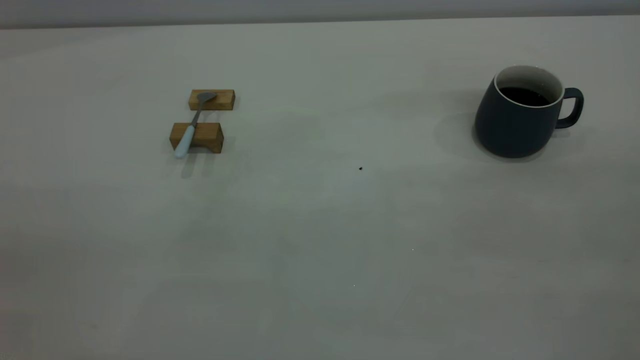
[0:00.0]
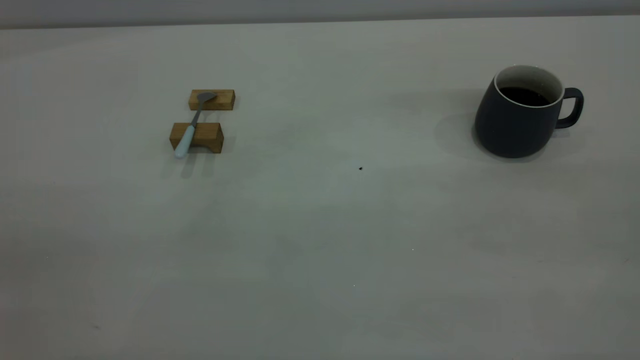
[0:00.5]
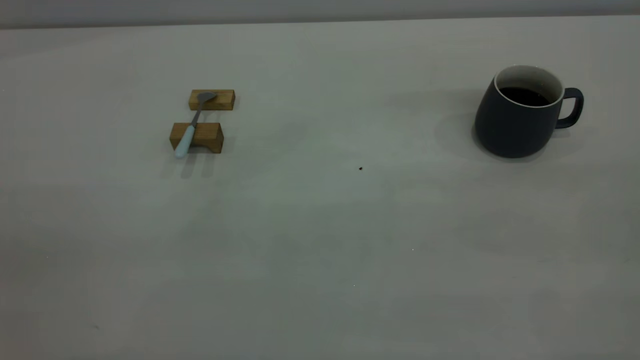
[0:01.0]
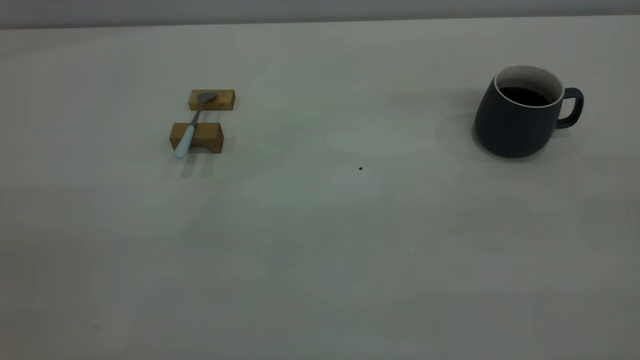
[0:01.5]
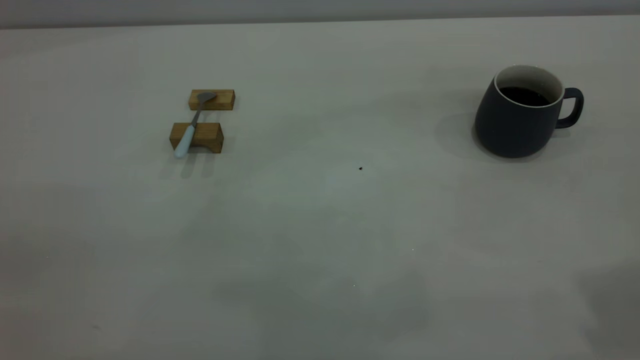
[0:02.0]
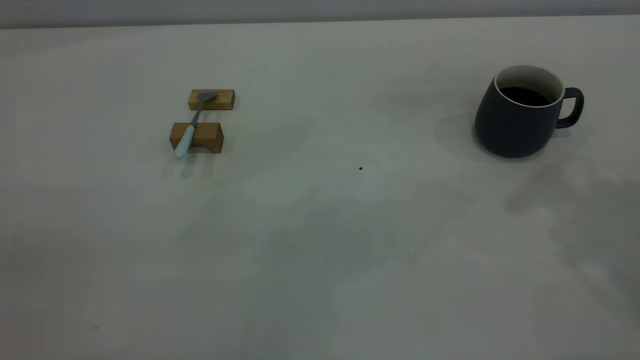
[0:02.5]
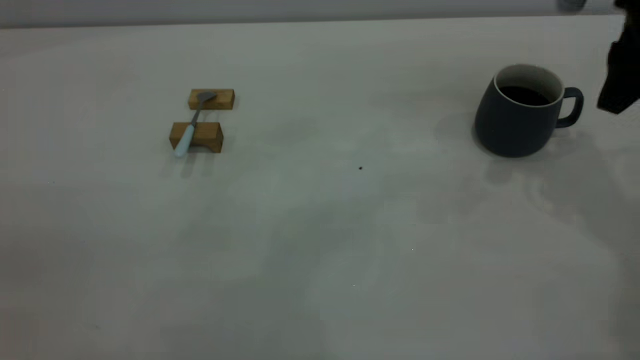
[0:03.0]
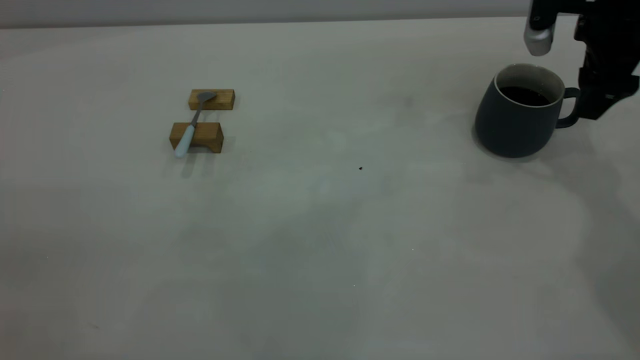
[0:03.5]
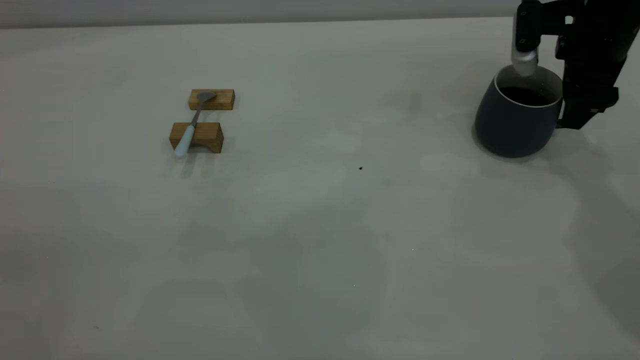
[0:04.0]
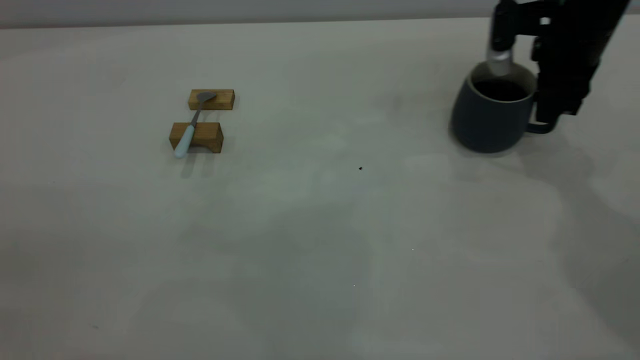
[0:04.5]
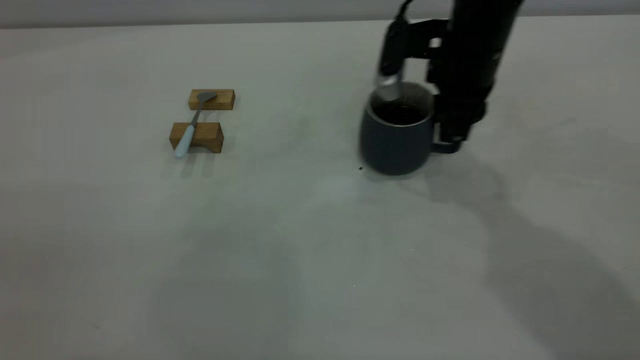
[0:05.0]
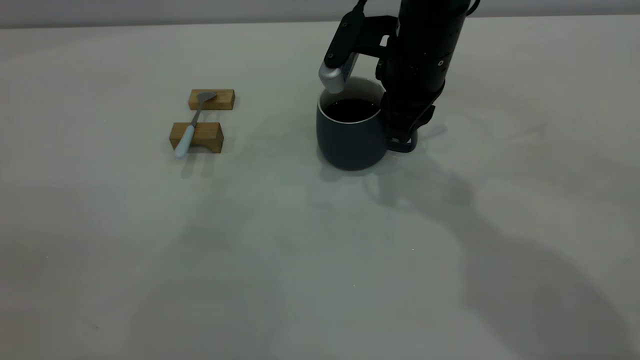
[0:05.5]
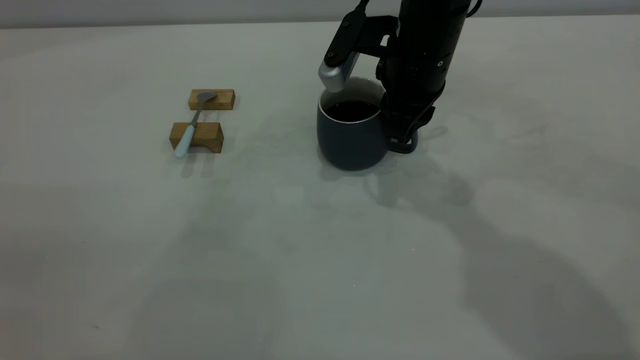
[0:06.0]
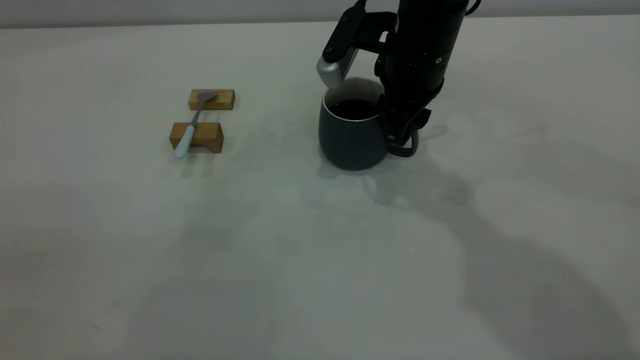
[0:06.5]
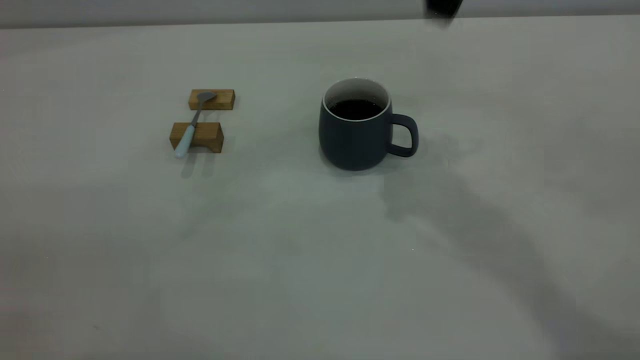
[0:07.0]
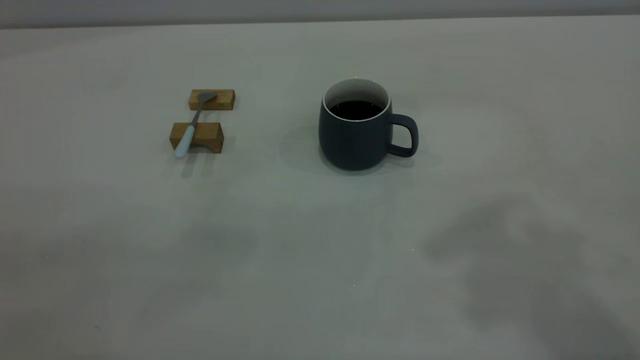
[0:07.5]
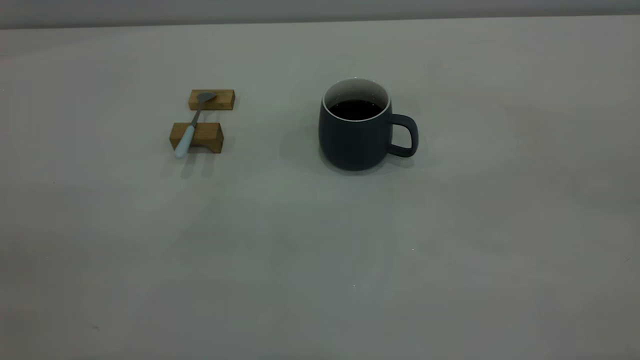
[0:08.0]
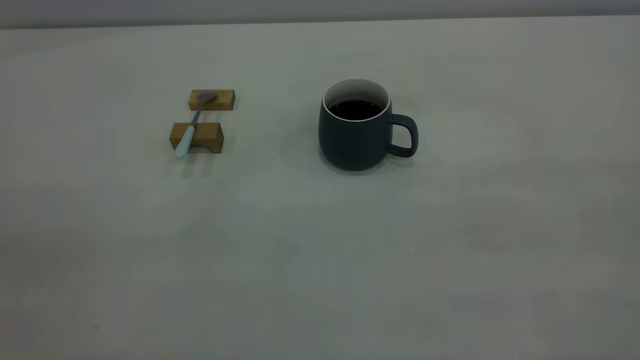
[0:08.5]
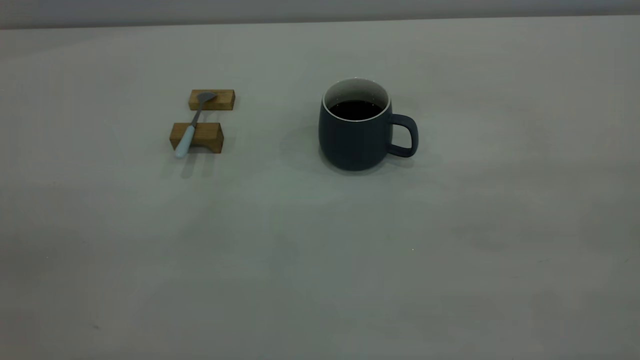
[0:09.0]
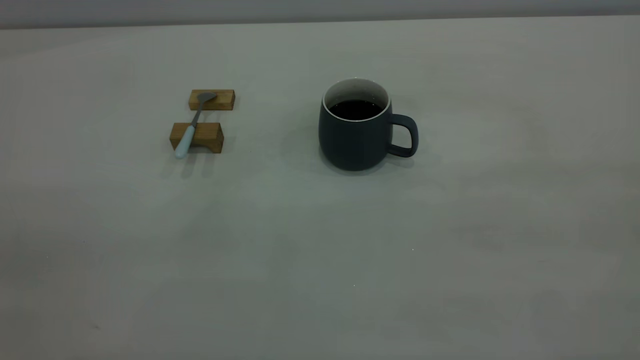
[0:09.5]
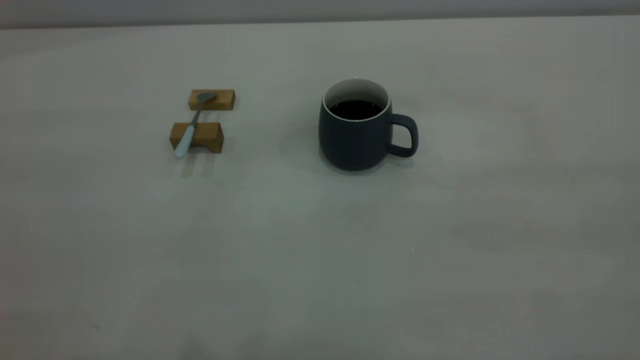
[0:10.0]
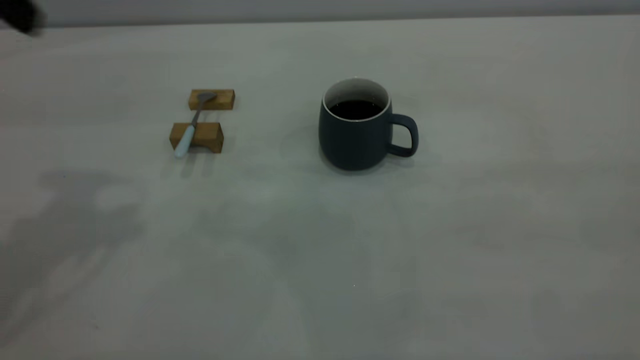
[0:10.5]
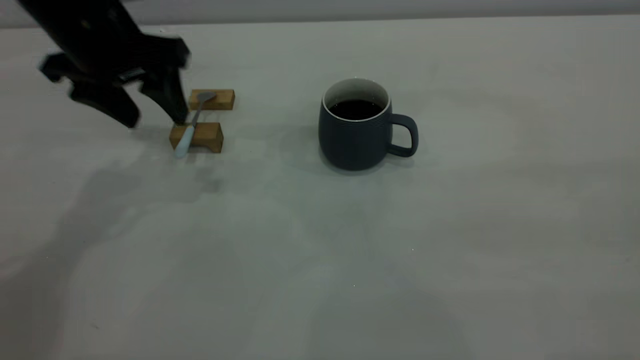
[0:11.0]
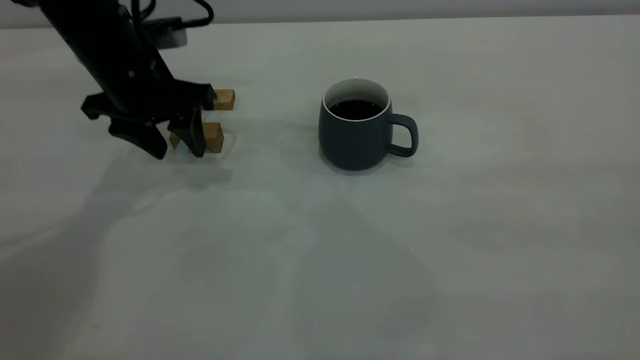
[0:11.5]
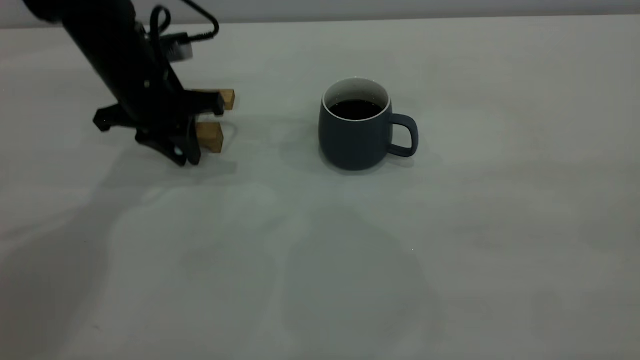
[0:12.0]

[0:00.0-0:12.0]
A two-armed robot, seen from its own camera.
Step, 0:03.0 to 0:06.5: Move the cup in the center of the table with right gripper.
Step, 0:07.0 to 0:11.5: Grasp the spoon with left gripper.
0:02.0 to 0:04.0: The right gripper moves forward and downward, roughly 40 cm.
0:04.0 to 0:06.0: The right gripper shifts about 20 cm to the left, and closes up.
0:06.0 to 0:08.0: The right gripper heads backward, upward and to the right, covering approximately 50 cm, and opens.
0:10.0 to 0:12.0: The left gripper shifts approximately 40 cm forward and downward, and closes up.

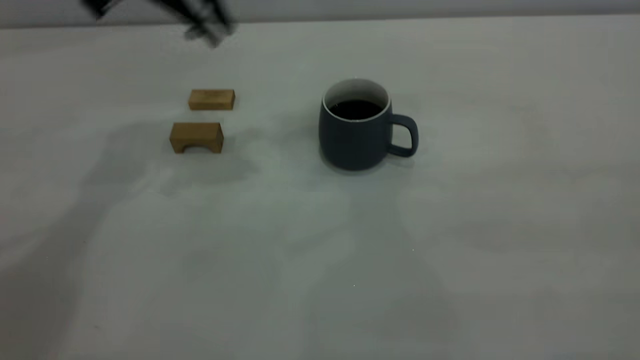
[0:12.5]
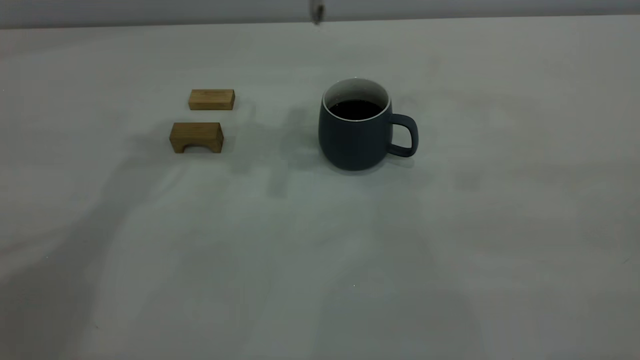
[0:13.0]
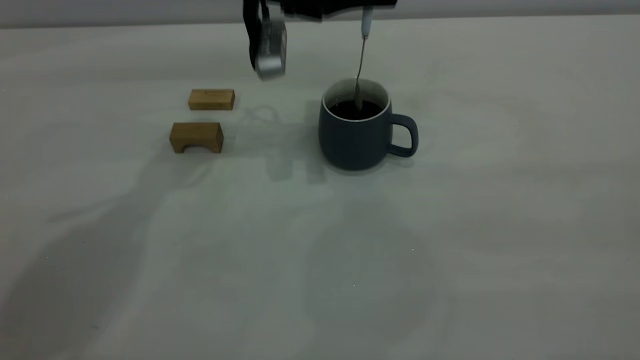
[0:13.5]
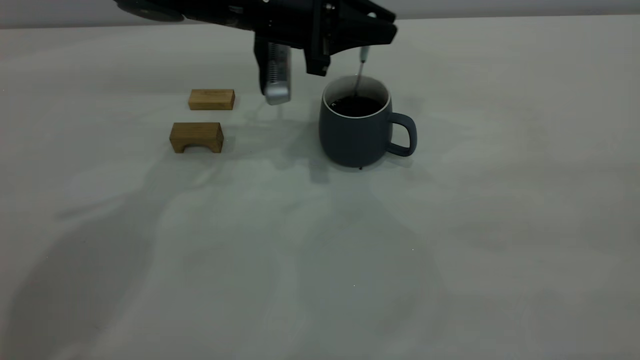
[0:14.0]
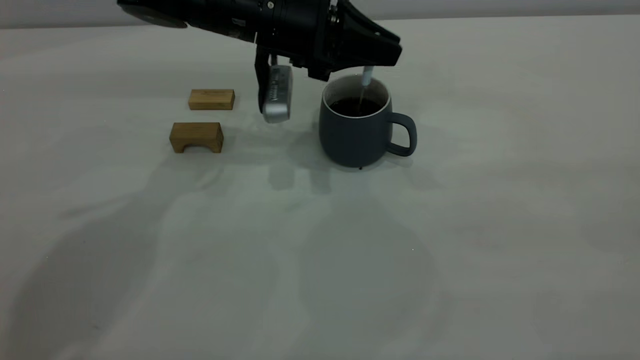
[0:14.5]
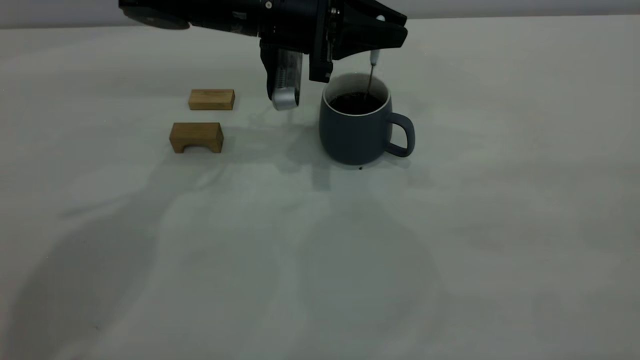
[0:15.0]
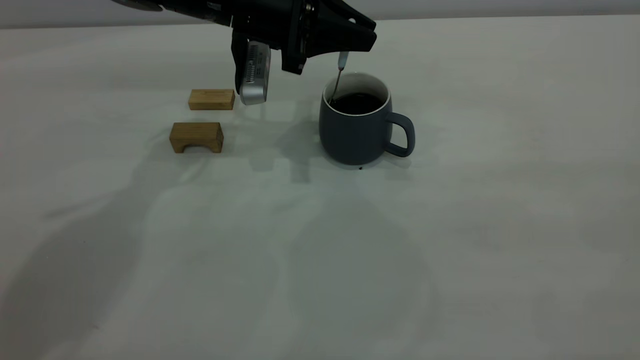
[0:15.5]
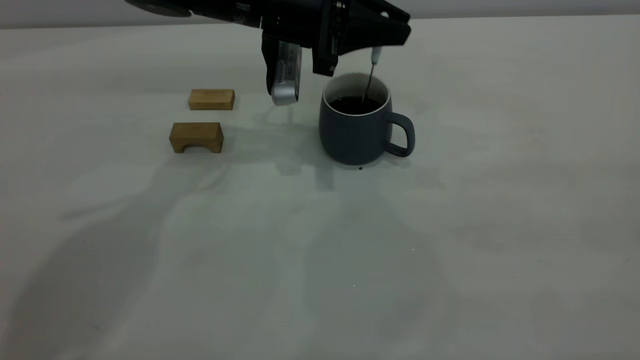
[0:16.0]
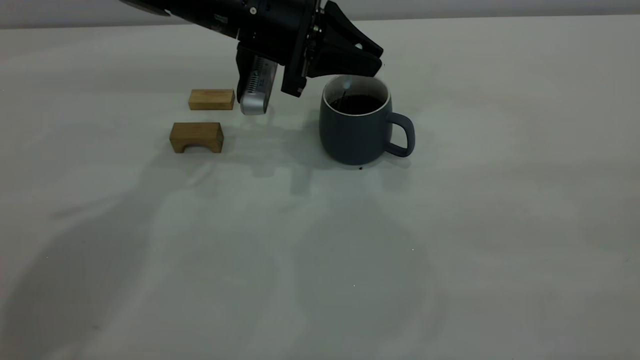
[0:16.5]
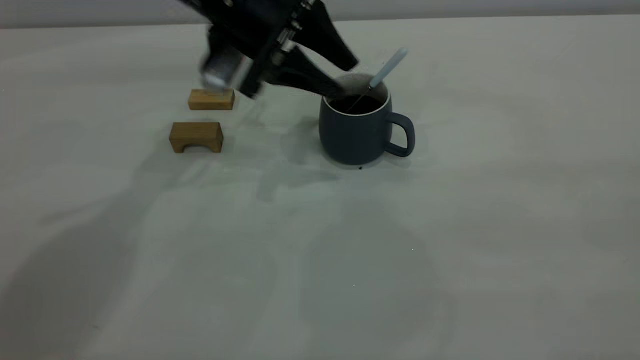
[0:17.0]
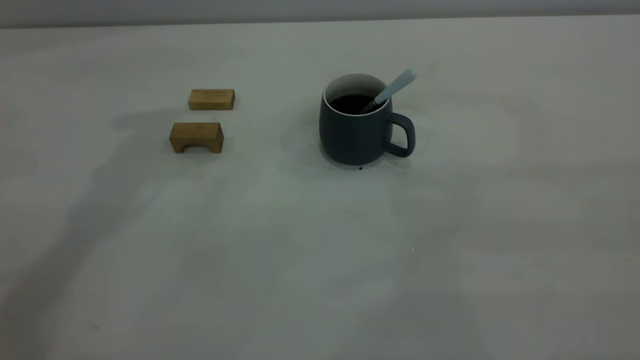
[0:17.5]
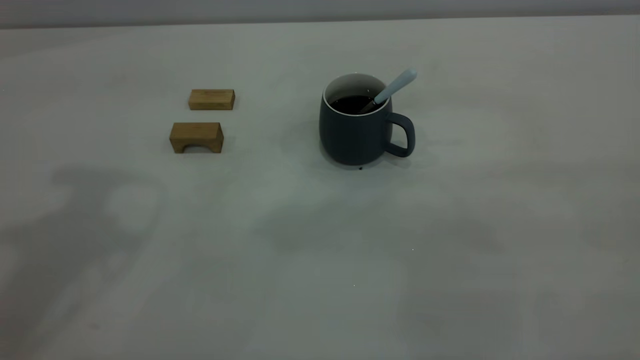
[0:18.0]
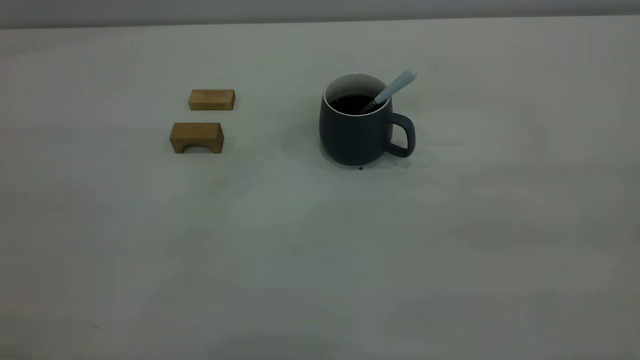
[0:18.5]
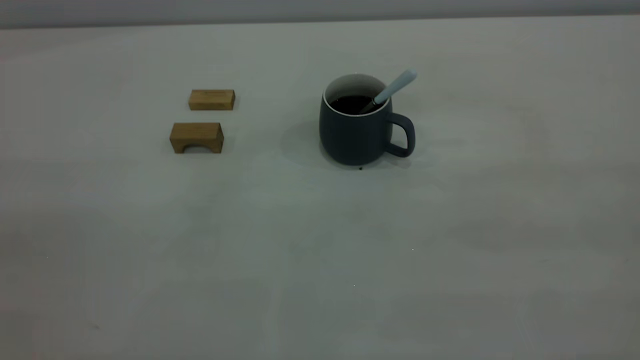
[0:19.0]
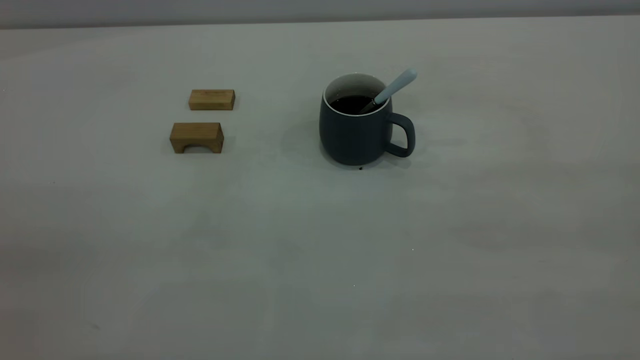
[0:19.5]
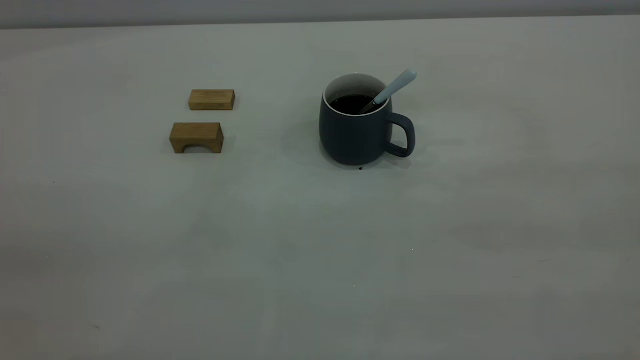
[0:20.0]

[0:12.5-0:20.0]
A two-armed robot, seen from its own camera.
Step, 0:12.5 to 0:16.5: Stir the coffee with left gripper.
0:12.5 to 0:14.5: The left gripper moves downward and to the right, about 15 cm.
0:14.5 to 0:16.5: The grippers stay close to where they were, moving slightly.
0:16.5 to 0:18.0: The left gripper travels upward, backward and to the left by roughly 35 cm, and opens up.
